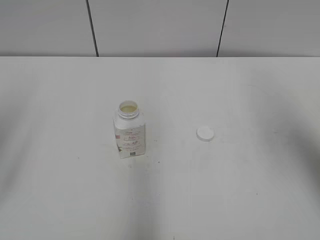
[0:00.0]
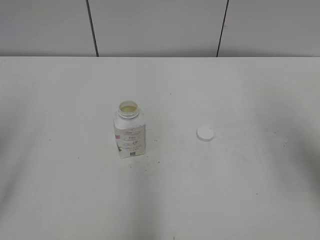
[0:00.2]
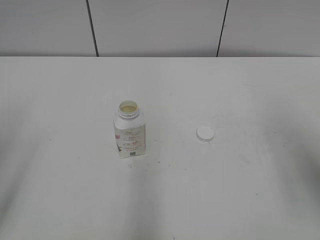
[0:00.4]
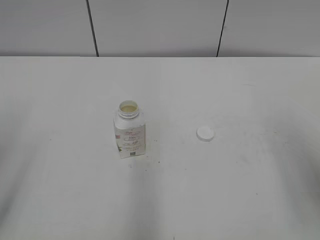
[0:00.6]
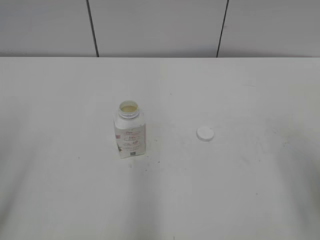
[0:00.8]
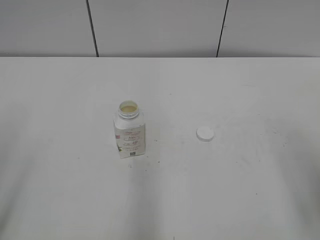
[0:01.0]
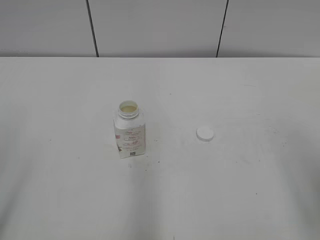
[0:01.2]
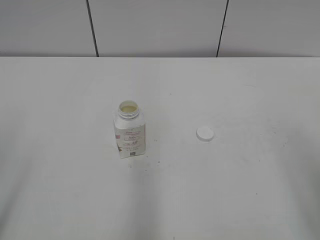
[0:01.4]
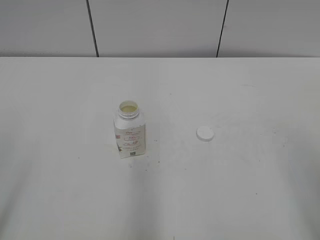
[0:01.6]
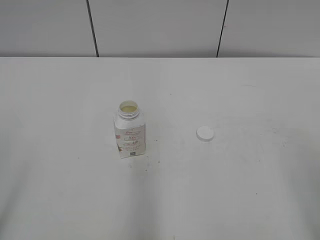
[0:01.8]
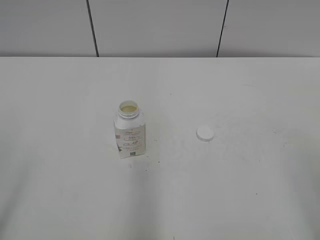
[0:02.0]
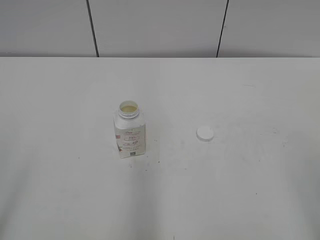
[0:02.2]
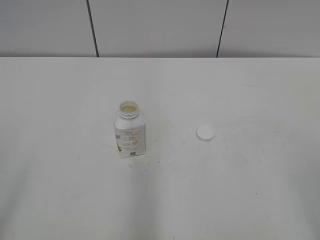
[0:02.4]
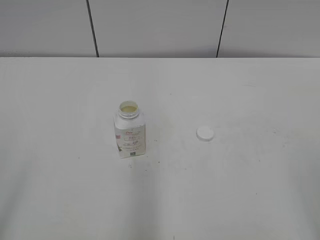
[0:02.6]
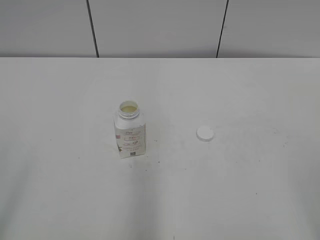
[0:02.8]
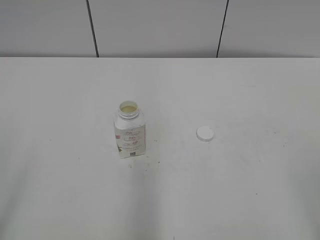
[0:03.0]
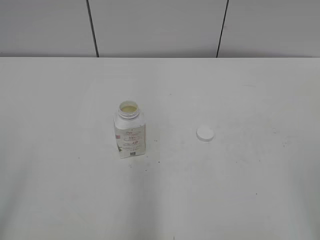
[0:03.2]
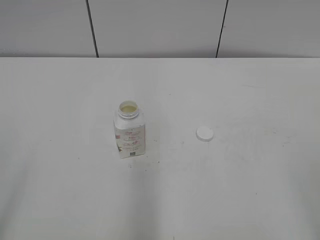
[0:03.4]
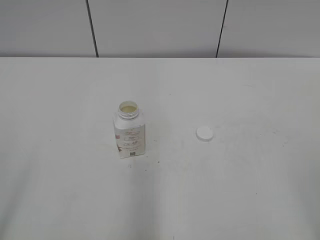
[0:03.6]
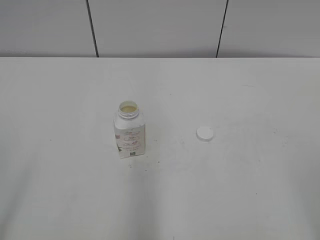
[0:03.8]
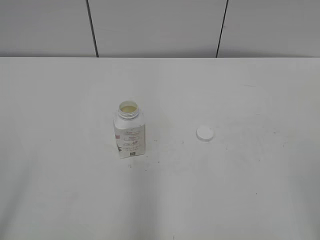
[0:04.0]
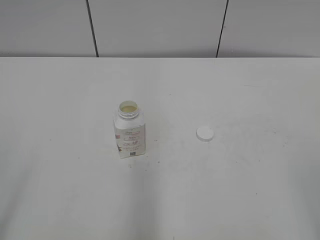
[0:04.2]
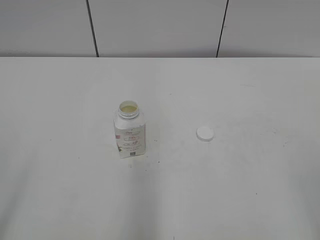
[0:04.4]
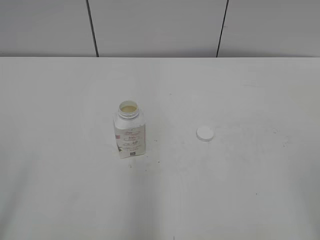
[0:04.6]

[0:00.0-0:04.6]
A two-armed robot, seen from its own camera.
0:00.0 to 0:01.6: The right gripper shifts some 20 cm backward and downward.
